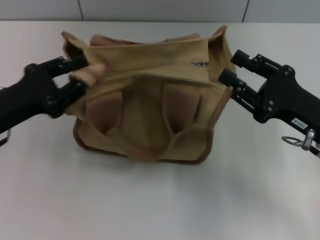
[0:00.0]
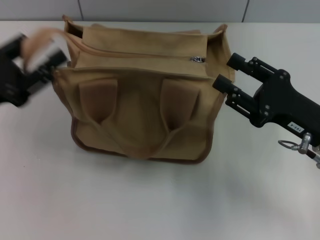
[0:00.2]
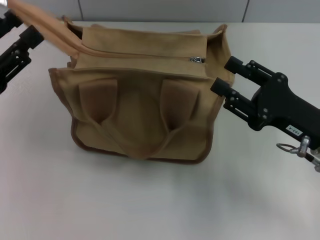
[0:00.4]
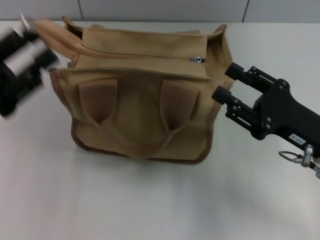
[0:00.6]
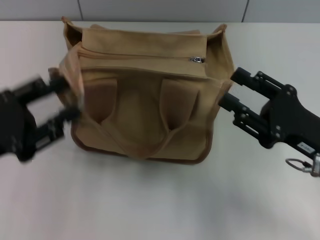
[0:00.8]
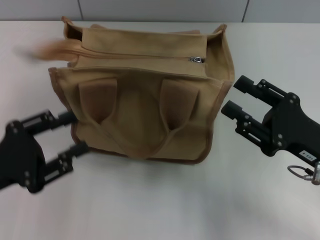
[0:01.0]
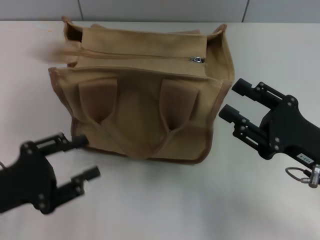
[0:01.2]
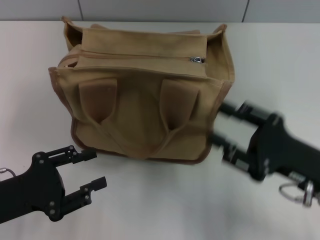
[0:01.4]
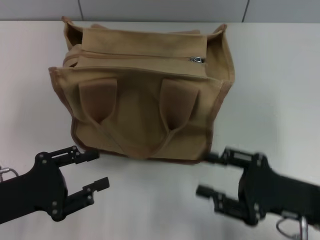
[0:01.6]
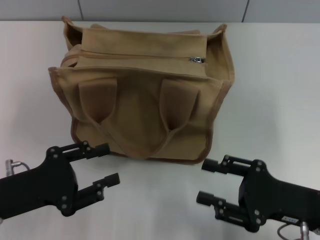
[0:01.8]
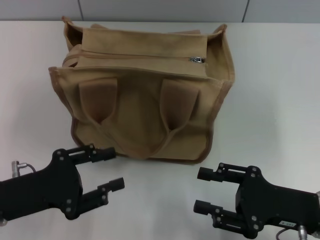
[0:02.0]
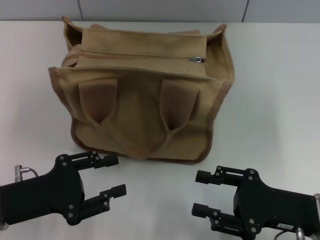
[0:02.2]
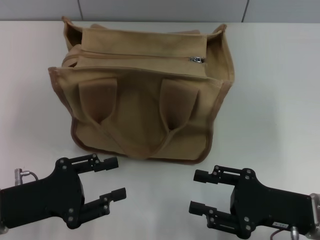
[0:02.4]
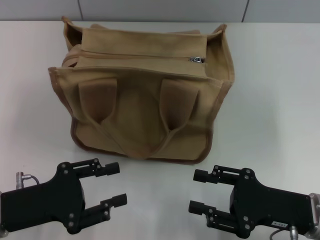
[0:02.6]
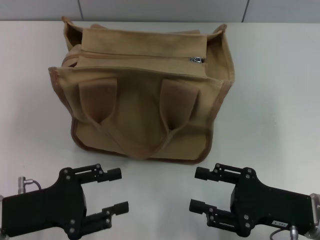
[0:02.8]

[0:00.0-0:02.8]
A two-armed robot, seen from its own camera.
Step, 0:00.0 to 0:00.8: Grab the zipper with your left hand.
0:00.0 to 0:01.4: The left gripper travels backward by roughly 10 cm, and opens its fingers; the right gripper opens.

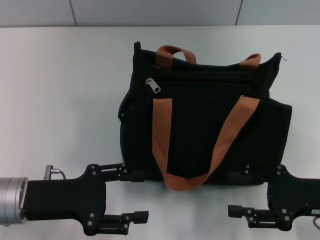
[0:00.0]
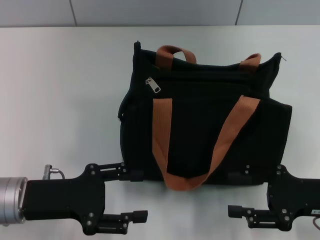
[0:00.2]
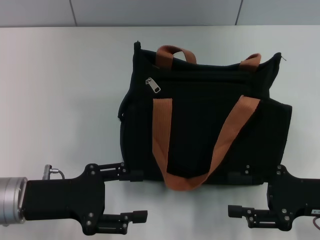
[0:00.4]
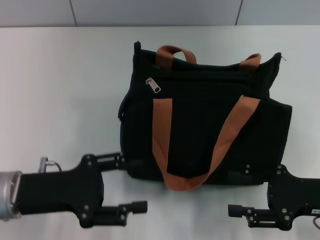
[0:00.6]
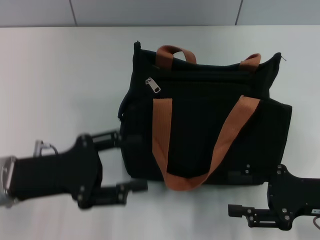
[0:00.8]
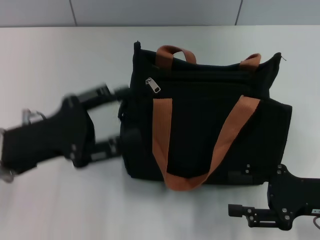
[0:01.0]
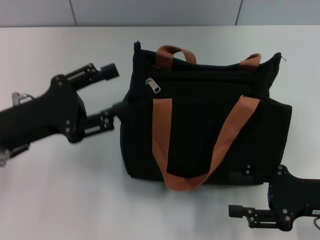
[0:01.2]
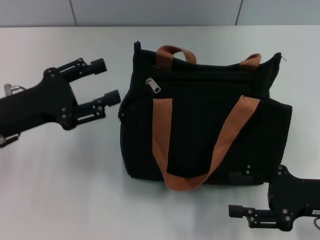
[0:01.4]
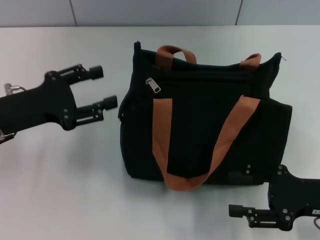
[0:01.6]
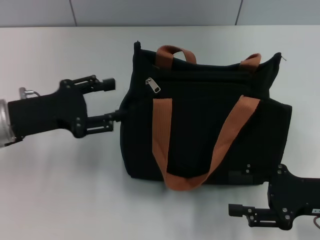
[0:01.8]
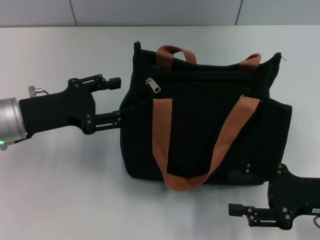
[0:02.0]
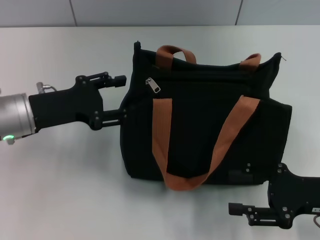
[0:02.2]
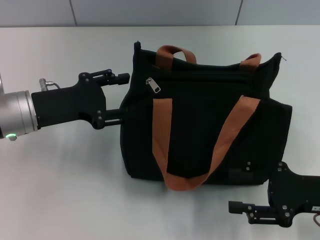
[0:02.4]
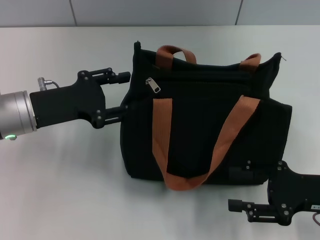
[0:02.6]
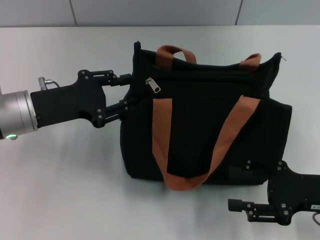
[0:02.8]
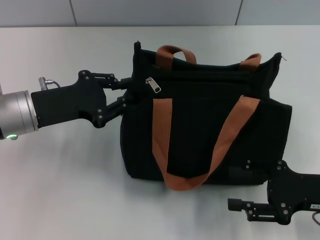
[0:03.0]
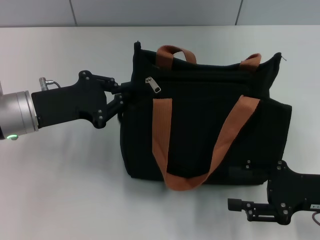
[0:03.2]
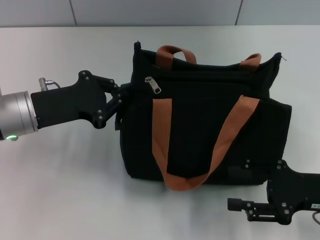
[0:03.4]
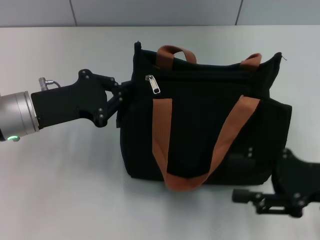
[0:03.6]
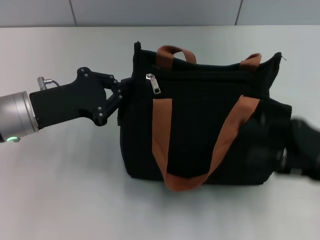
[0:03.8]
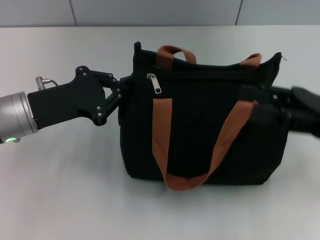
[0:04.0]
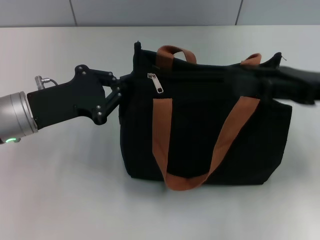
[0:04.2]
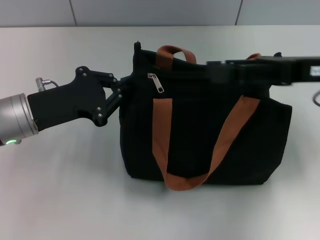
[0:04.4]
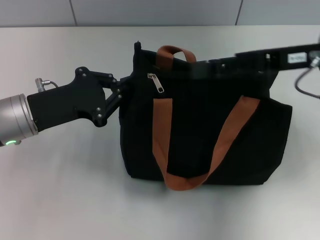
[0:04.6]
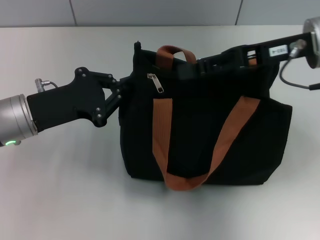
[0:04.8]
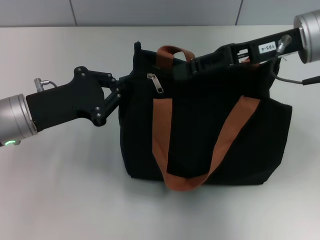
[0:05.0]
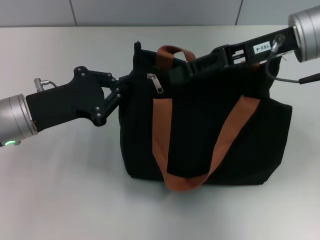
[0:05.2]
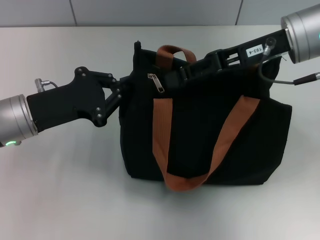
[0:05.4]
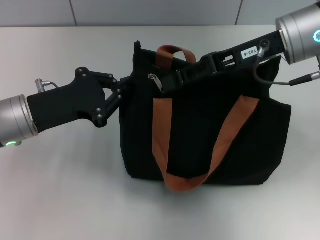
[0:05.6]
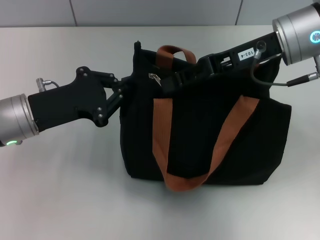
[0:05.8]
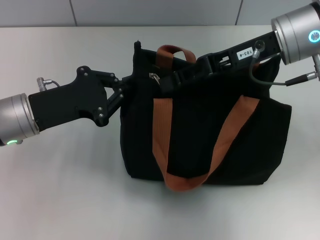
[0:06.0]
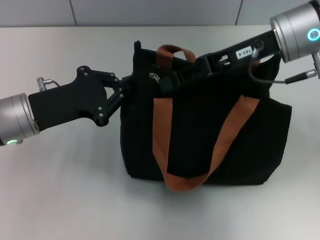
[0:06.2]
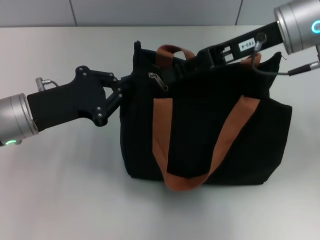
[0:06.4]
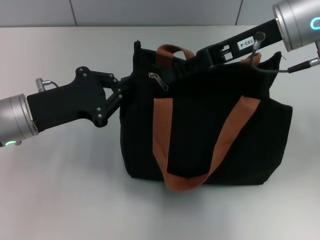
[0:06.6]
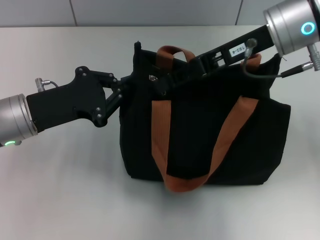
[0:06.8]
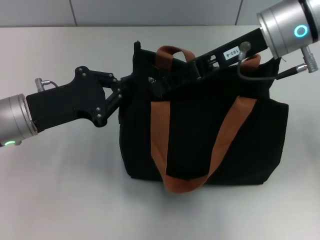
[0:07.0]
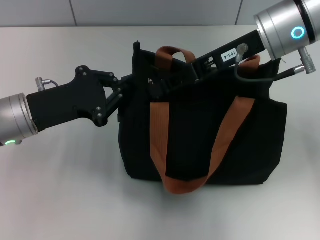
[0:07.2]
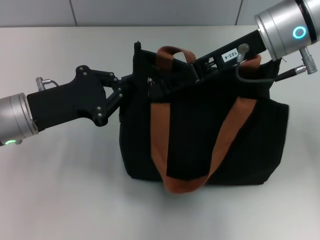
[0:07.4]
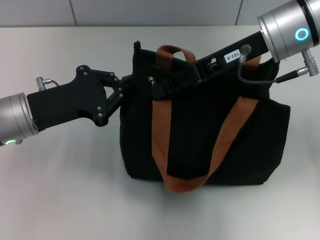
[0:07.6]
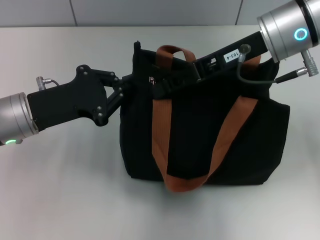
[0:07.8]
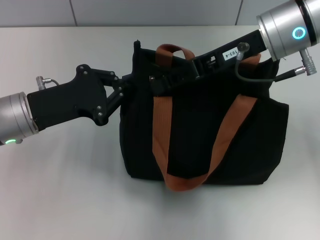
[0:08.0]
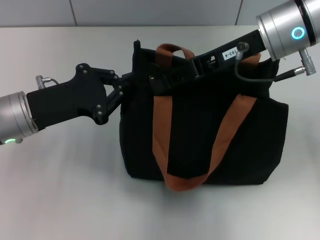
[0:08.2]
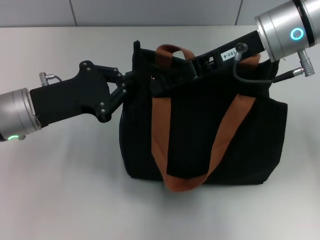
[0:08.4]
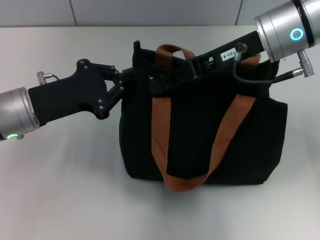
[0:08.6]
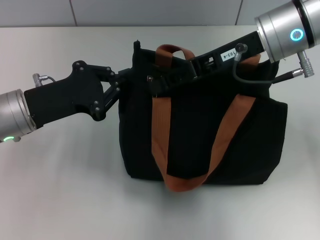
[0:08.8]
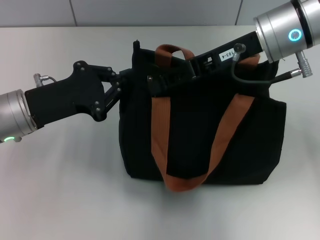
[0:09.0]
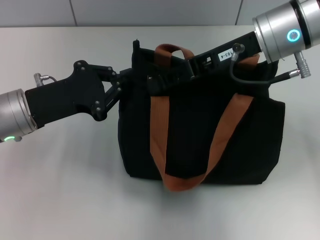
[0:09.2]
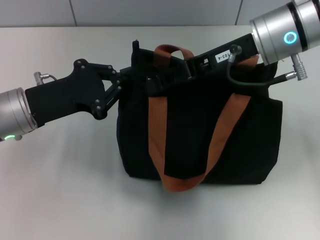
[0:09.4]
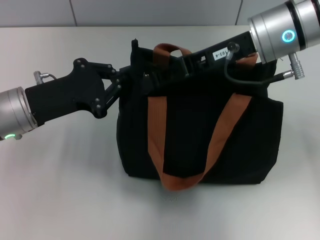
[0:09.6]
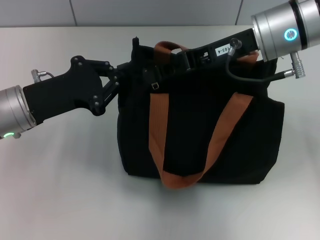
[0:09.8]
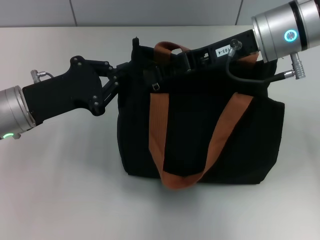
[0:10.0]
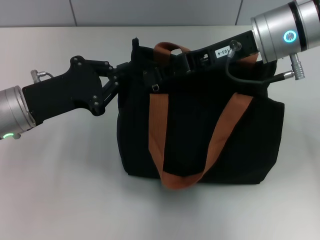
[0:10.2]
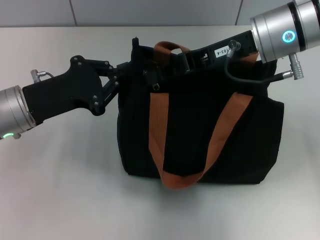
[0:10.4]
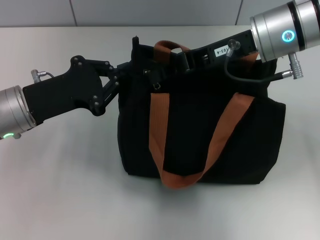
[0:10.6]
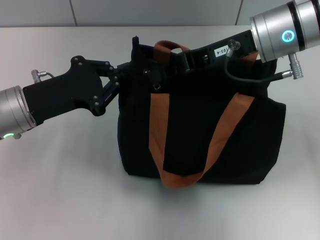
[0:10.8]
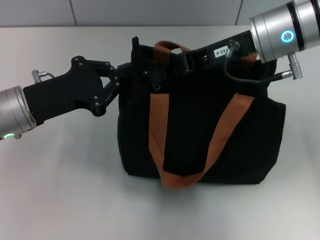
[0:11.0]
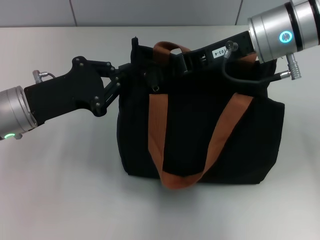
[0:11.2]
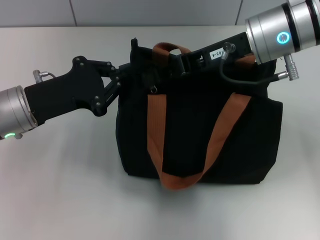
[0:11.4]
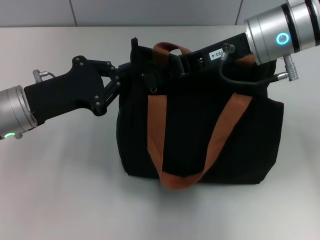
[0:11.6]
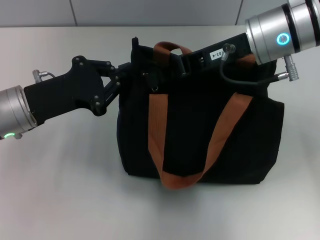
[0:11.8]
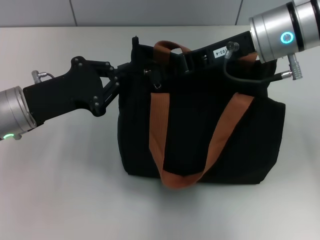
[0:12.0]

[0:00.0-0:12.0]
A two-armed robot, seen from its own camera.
0:00.0 to 0:01.6: The left gripper heads forward, covering some 5 cm.
0:01.6 to 0:03.0: The left gripper closes its fingers.
0:03.0 to 0:04.4: The right gripper is displaced upward and forward by roughly 15 cm, while the left gripper closes its fingers.
0:04.4 to 0:06.0: The right gripper travels to the left by approximately 5 cm, and closes.
0:06.0 to 0:07.6: The grippers make only small movements.
0:07.6 to 0:09.0: Both grippers stay about where they are.
0:09.0 to 0:12.0: The two grippers keep their place.

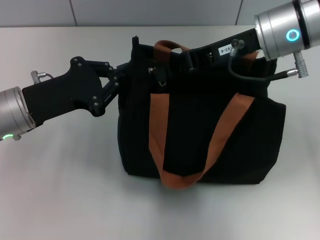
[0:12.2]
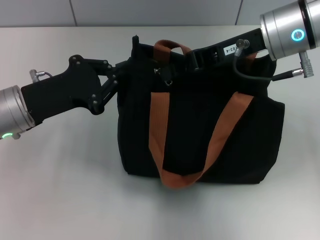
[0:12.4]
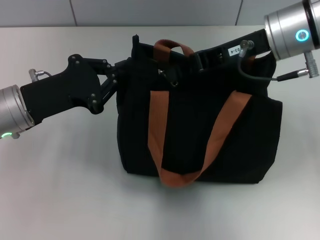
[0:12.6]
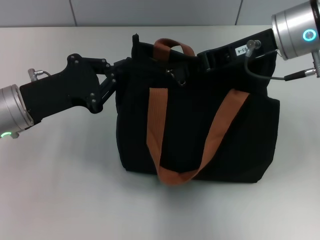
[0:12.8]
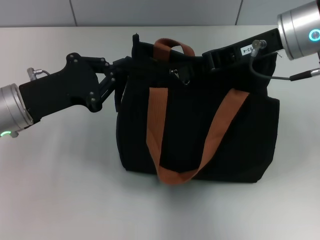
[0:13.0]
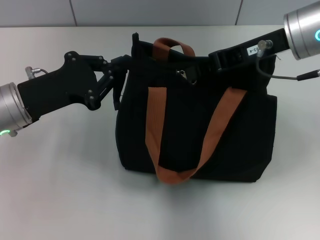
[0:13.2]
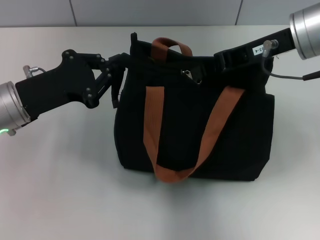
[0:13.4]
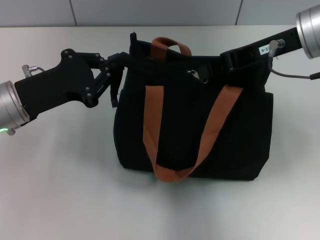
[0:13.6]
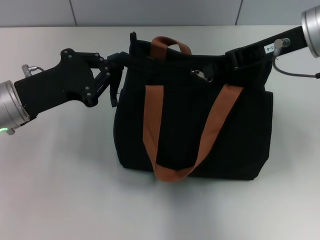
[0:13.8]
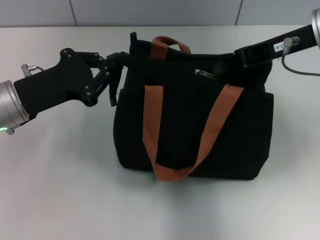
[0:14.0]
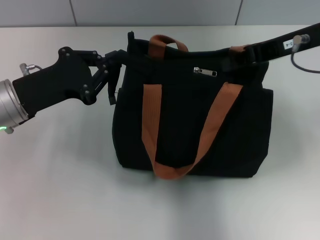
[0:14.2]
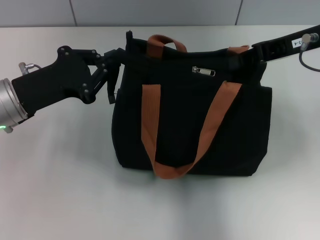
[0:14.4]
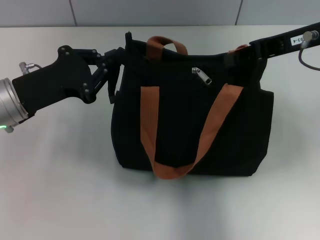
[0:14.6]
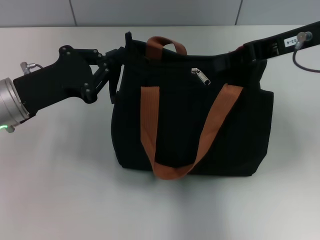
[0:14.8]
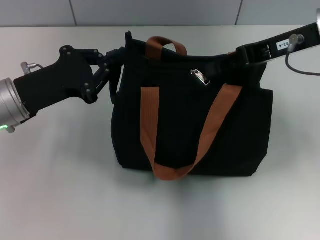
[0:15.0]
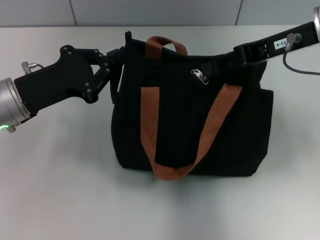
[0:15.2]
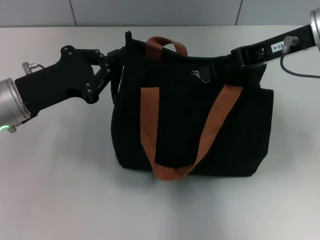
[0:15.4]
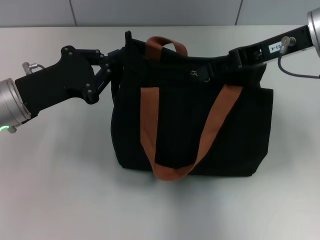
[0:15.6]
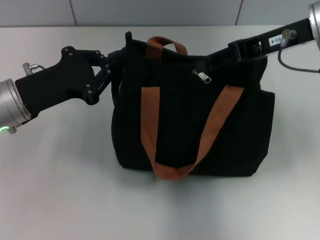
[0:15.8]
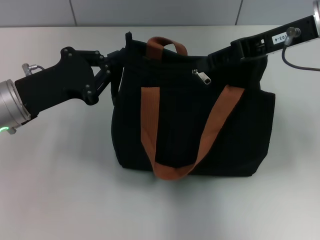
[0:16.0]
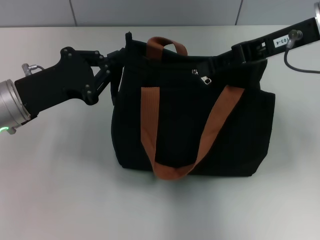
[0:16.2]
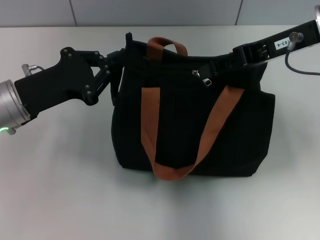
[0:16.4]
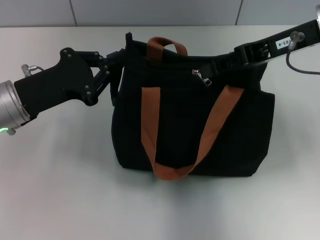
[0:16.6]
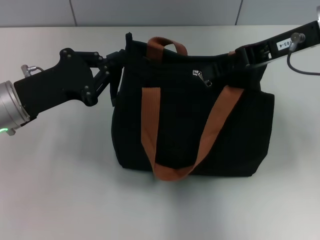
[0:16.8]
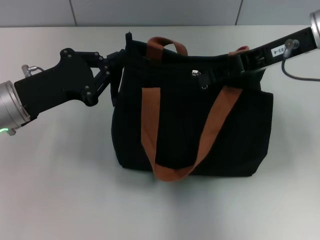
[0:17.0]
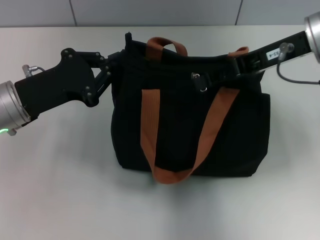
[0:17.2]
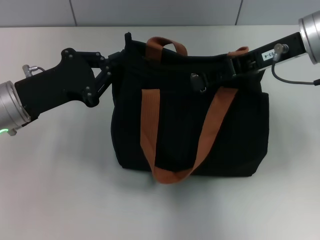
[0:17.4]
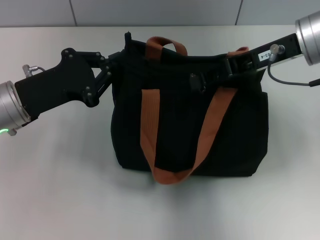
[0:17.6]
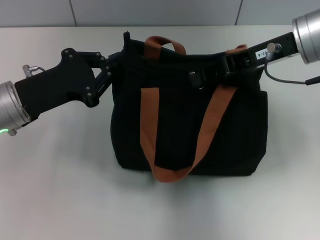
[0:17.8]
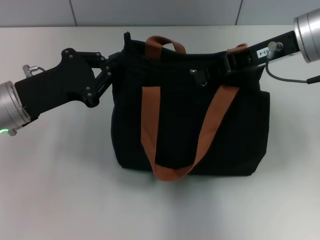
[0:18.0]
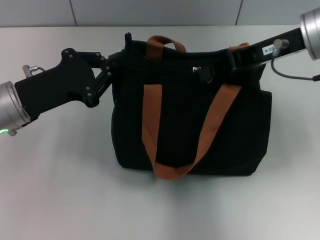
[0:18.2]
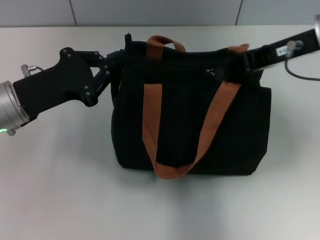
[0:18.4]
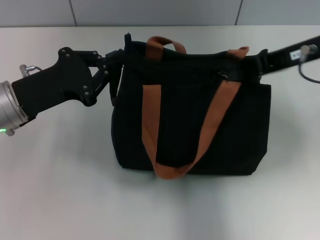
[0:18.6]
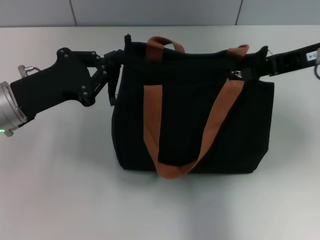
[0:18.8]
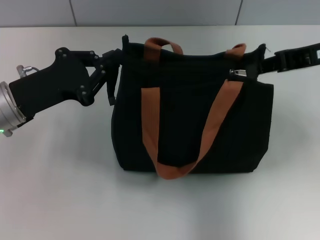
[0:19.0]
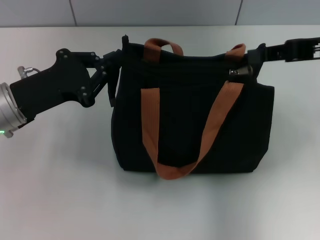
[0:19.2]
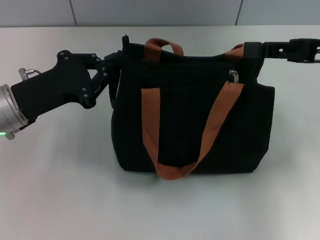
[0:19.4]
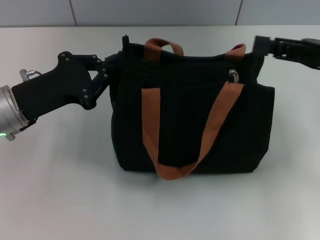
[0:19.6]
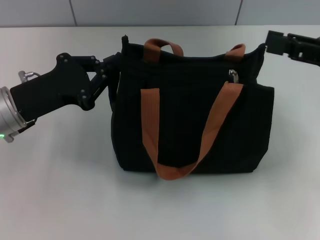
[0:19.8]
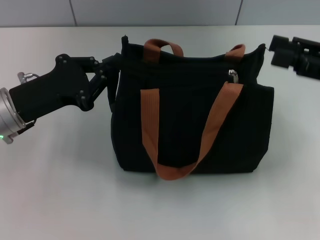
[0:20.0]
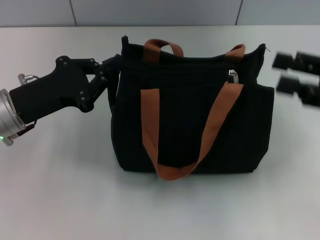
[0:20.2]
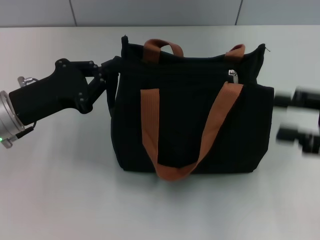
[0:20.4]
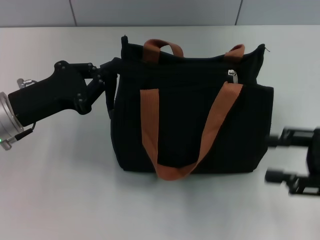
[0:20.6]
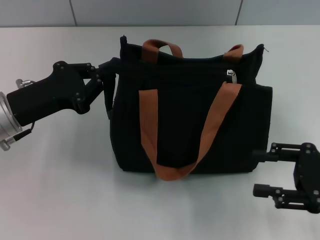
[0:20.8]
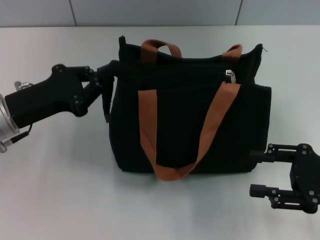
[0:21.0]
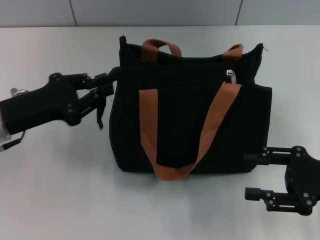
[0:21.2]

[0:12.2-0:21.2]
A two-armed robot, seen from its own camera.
Step, 0:12.2 to 0:19.0: Pull up the zipper with your right hand.
0:12.2 to 0:13.8: The right gripper ends up approximately 5 cm from where it was.
0:13.8 to 0:15.2: The right gripper opens up.
0:15.2 to 0:16.6: The two grippers keep their place.
0:16.6 to 0:18.2: The right gripper closes its fingers.
0:18.2 to 0:19.8: The right gripper moves to the right and backward, about 15 cm, and opens up.
0:19.8 to 0:21.2: The right gripper moves downward and backward, approximately 10 cm.
